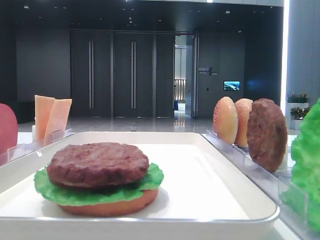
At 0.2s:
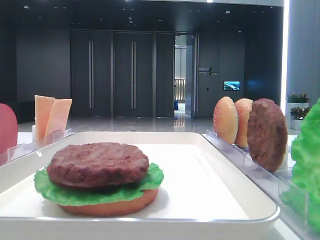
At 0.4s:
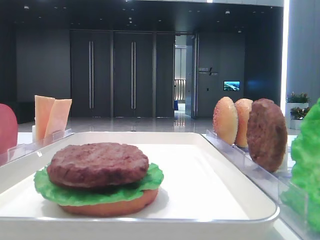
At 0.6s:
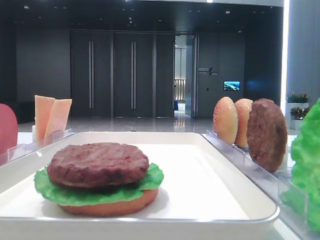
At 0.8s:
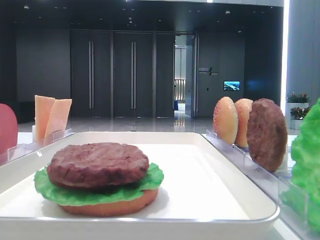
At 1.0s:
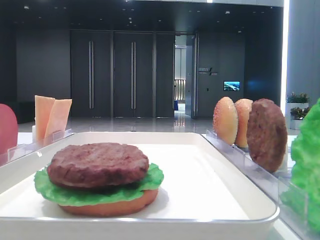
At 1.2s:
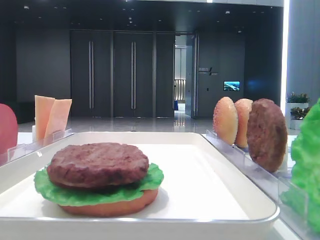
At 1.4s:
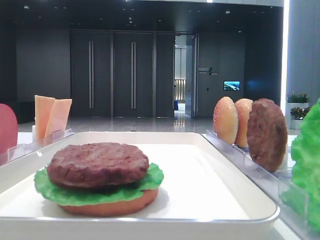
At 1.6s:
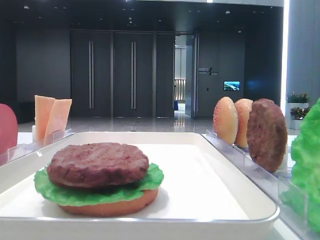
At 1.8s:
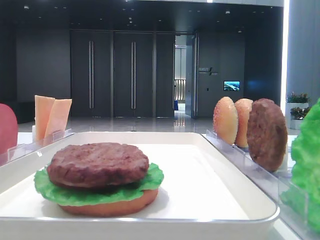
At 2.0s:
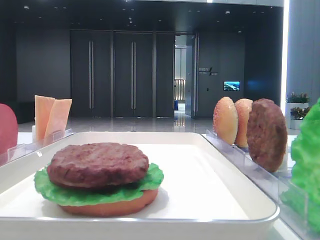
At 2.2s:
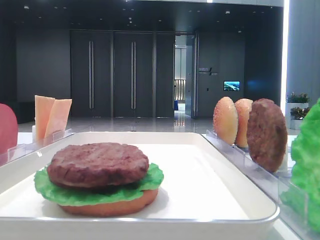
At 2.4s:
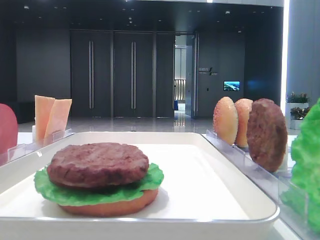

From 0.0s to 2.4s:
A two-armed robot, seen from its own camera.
From 1.2s to 2.4s: Neither gripper changes place.

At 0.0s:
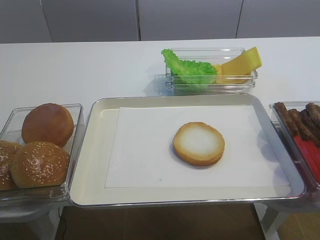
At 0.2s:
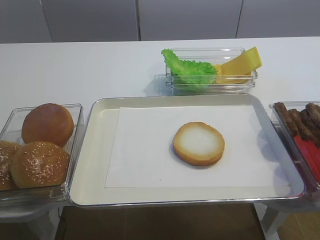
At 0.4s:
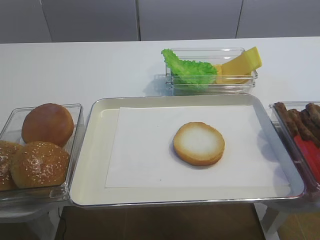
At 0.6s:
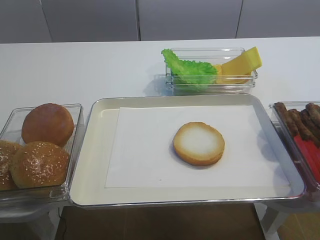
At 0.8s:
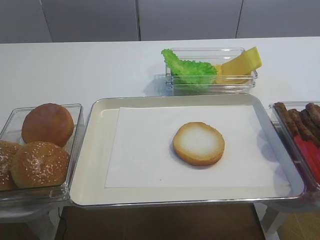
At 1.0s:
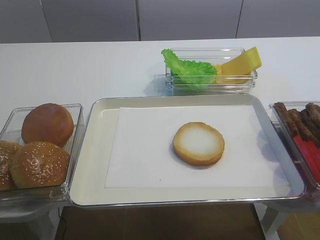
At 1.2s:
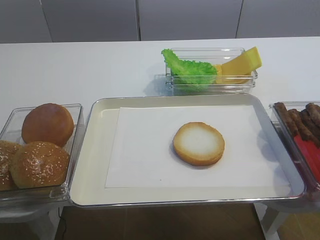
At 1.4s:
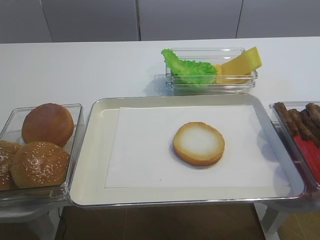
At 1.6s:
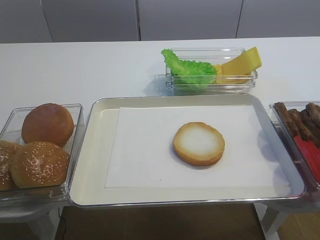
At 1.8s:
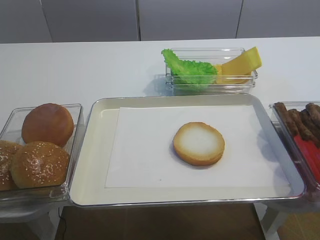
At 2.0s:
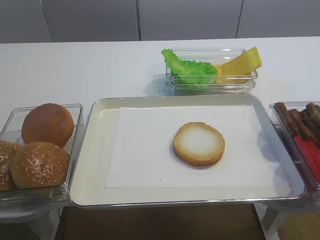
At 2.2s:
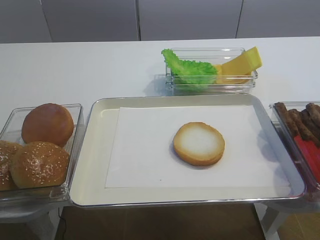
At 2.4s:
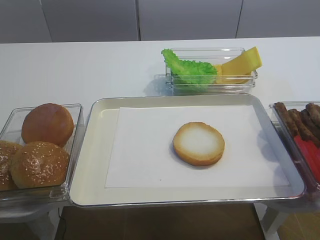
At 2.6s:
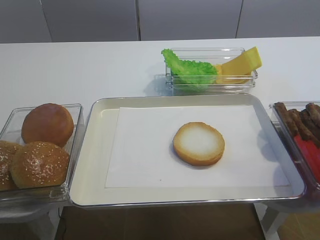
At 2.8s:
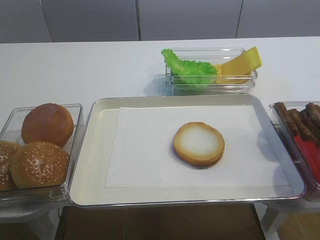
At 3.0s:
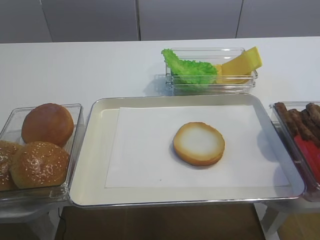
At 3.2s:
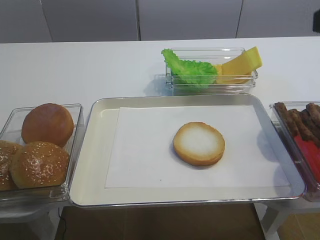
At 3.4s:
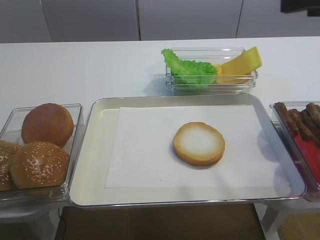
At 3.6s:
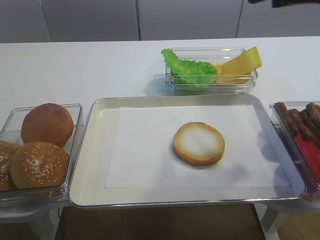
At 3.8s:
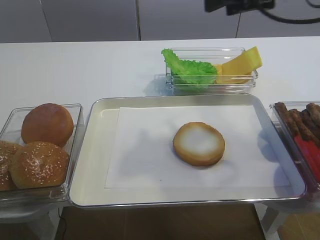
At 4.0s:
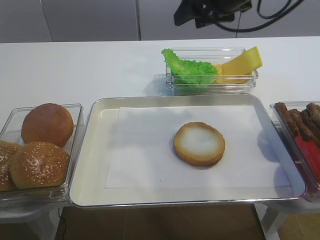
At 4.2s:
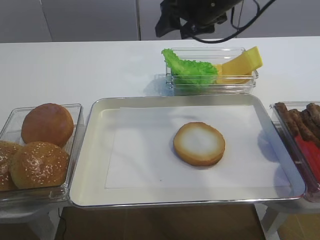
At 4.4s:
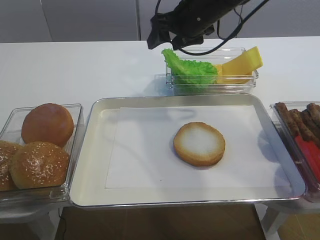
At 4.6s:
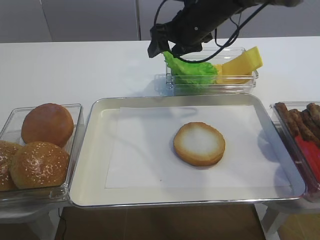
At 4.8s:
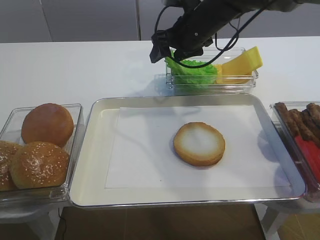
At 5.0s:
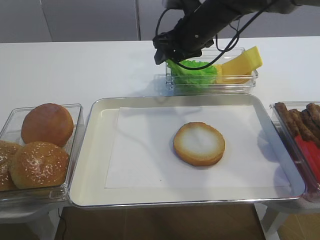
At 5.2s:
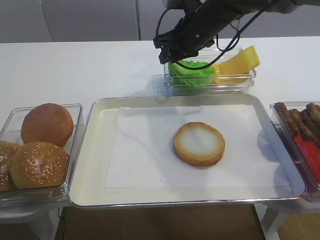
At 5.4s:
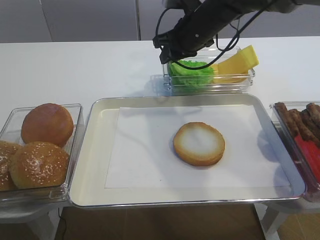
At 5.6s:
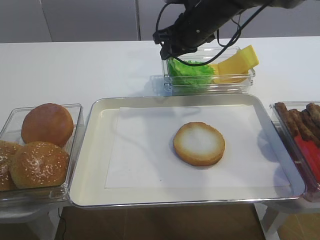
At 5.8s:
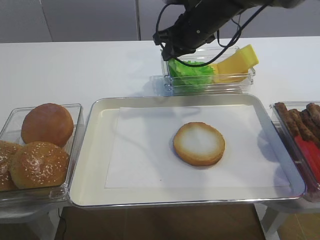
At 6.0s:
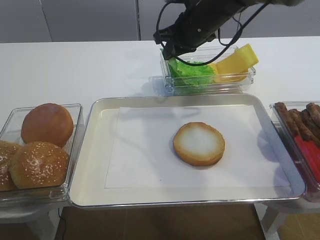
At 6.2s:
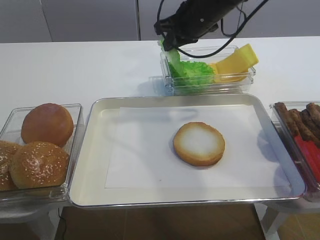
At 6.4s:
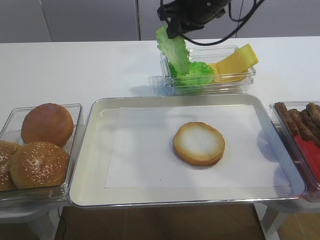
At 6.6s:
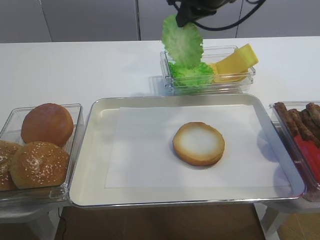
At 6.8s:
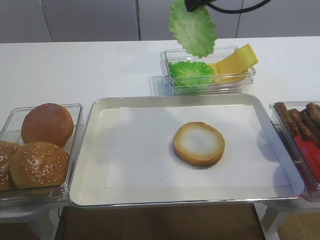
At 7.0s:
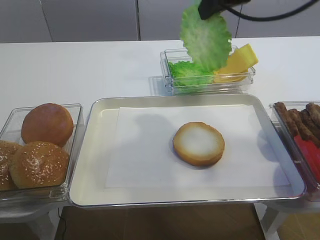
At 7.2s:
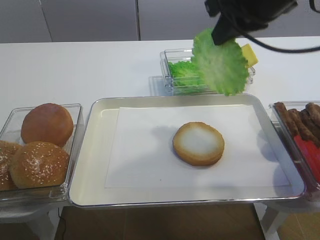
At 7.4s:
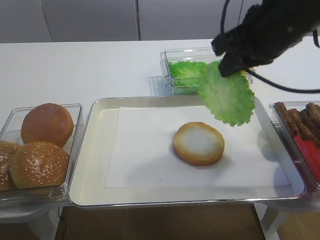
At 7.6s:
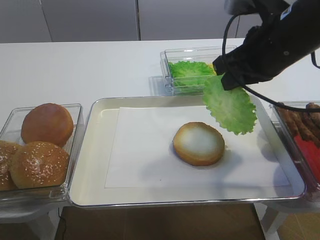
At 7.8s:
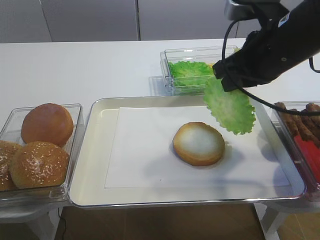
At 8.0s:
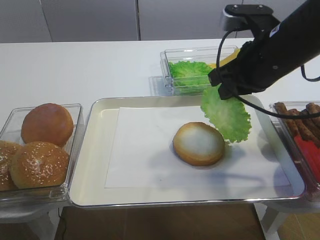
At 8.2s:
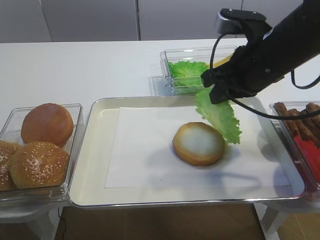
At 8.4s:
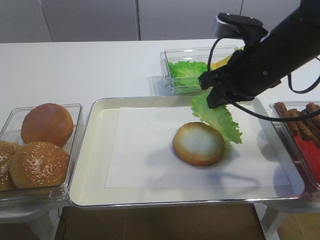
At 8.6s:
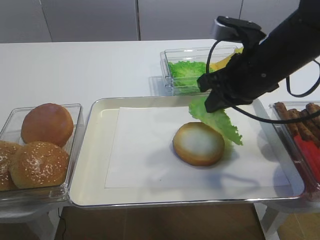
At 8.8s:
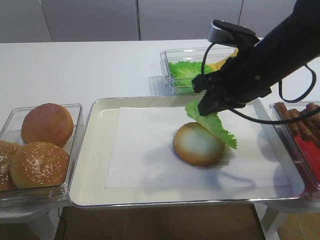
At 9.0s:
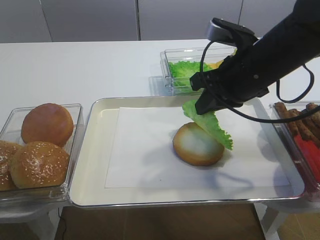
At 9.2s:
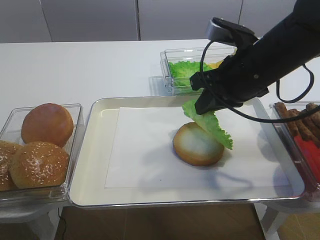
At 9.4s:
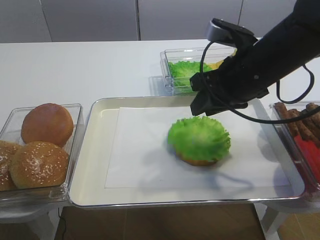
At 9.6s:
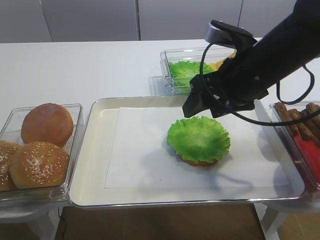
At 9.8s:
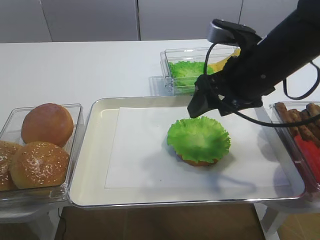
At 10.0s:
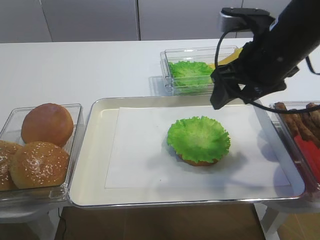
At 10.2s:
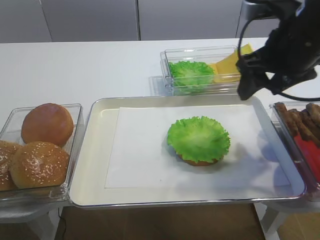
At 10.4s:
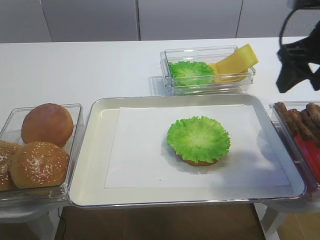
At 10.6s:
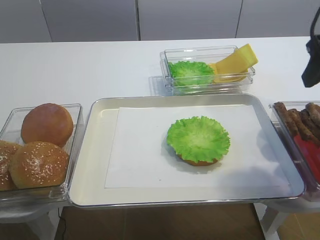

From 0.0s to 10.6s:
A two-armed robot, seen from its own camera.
Step, from 0.0s to 6.6s: Pick up the lettuce leaf with the right gripper.
Step, from 6.8s to 10.0s: Place the lettuce leaf on the bread slice with the right gripper.
From 3.0s to 4.6s: The right gripper goes approximately 35 cm forward and to the left.
From 4.6s to 6.0s: The right gripper closes up.
From 6.0s to 7.6s: The right gripper travels backward and to the right by approximately 20 cm.
From 7.6s to 9.0s: There are only small adjustments of the grippers.
From 9.0s to 10.6s: The right gripper heads to the right and upward, covering roughly 15 cm, and opens its fingers.

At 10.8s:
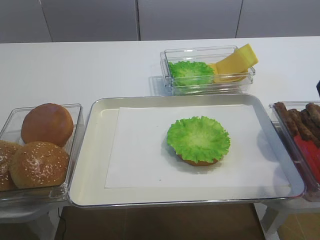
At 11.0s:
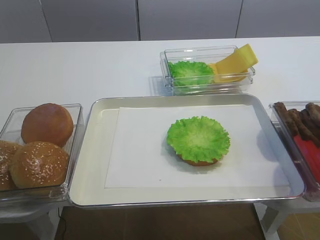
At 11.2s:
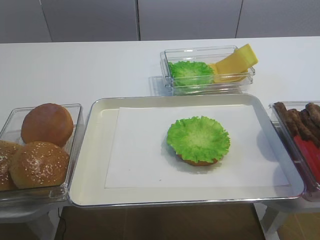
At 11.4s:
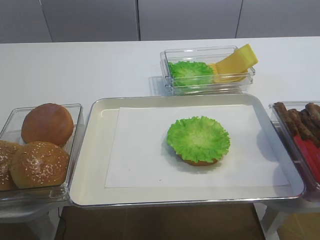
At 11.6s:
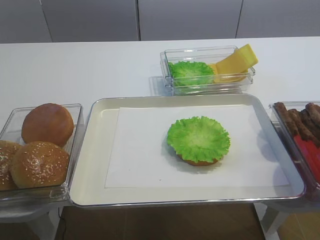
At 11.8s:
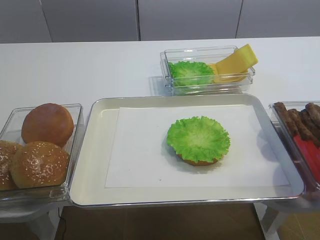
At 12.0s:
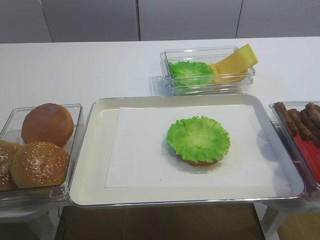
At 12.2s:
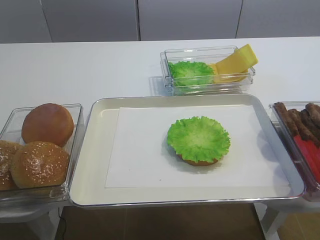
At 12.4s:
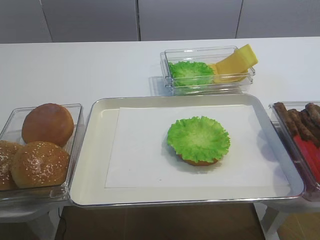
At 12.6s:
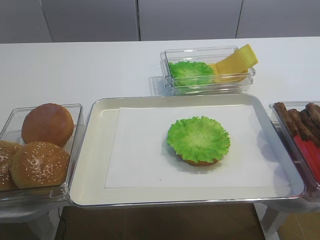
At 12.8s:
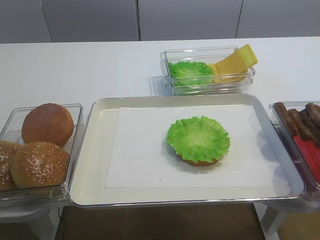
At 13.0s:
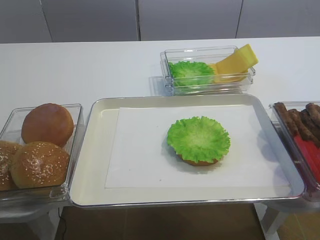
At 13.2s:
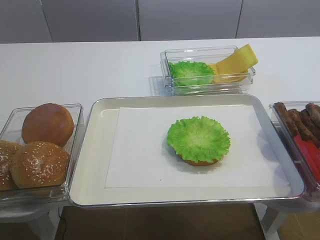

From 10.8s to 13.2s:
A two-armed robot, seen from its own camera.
From 10.8s to 12.0s: The right gripper moves backward, approximately 25 cm.

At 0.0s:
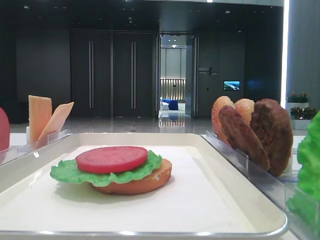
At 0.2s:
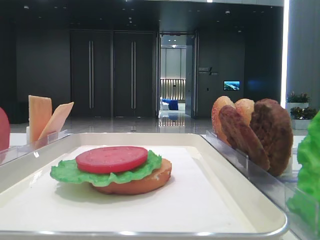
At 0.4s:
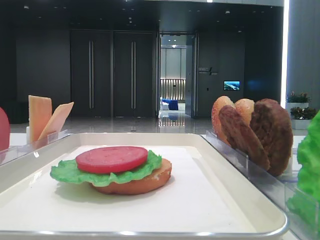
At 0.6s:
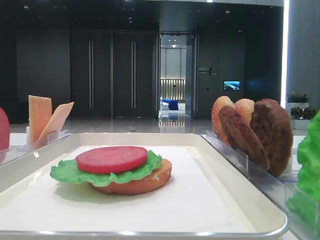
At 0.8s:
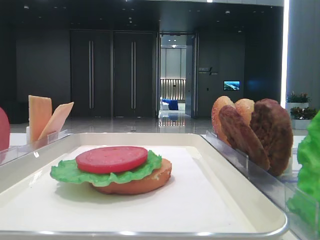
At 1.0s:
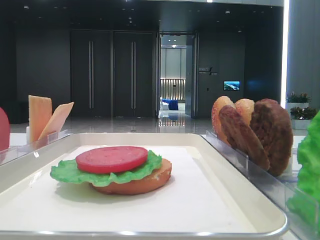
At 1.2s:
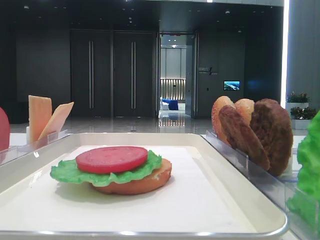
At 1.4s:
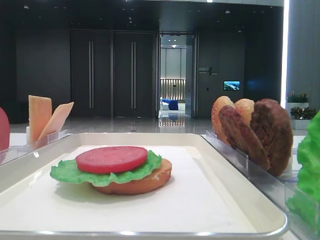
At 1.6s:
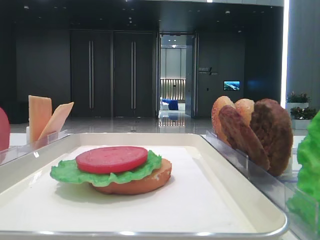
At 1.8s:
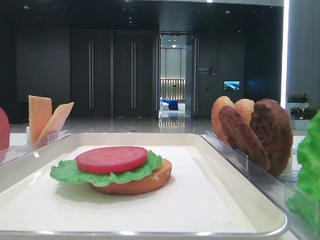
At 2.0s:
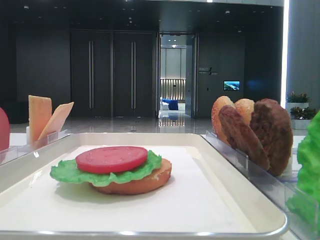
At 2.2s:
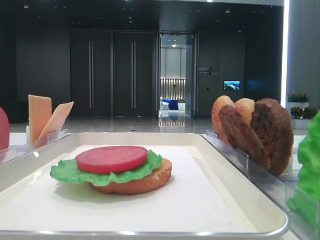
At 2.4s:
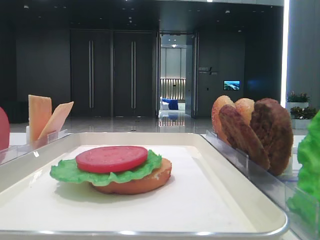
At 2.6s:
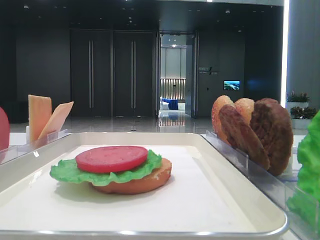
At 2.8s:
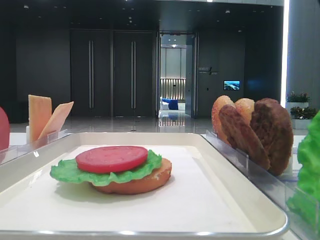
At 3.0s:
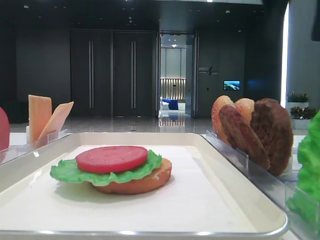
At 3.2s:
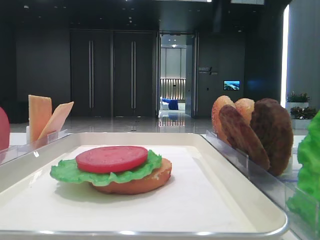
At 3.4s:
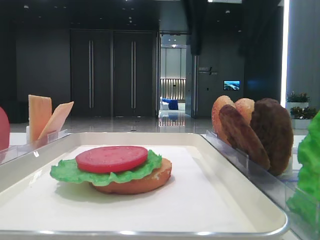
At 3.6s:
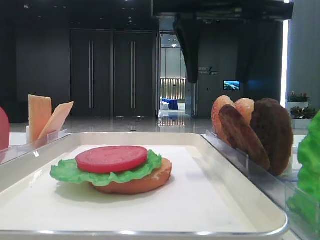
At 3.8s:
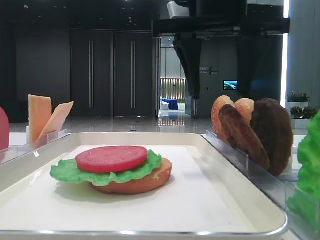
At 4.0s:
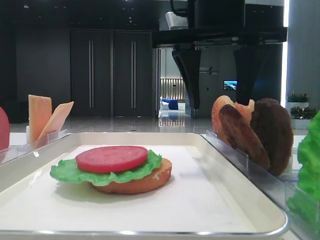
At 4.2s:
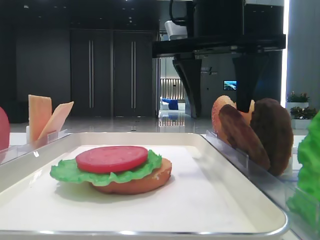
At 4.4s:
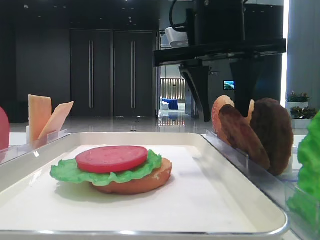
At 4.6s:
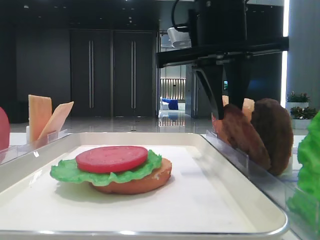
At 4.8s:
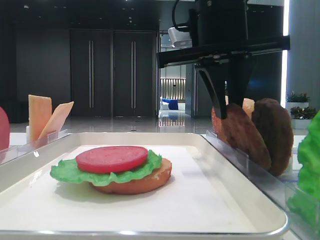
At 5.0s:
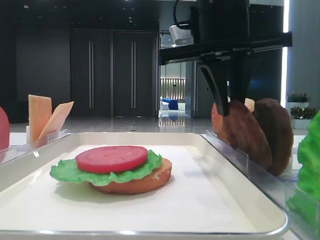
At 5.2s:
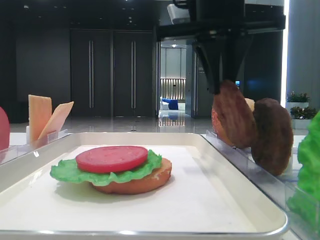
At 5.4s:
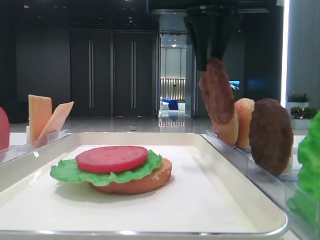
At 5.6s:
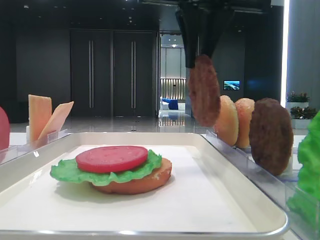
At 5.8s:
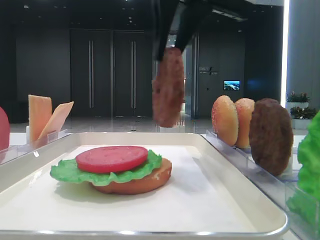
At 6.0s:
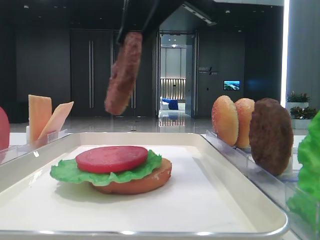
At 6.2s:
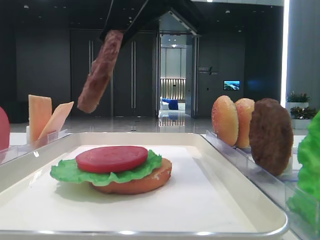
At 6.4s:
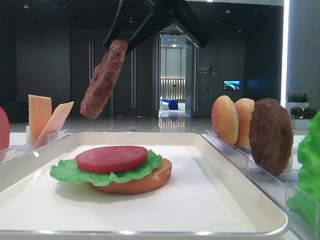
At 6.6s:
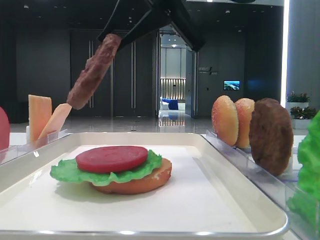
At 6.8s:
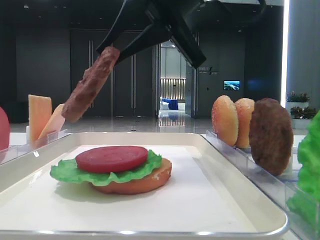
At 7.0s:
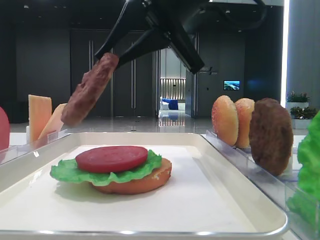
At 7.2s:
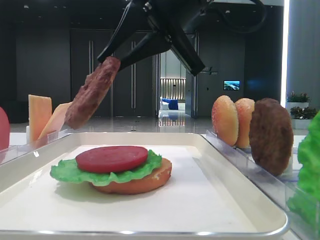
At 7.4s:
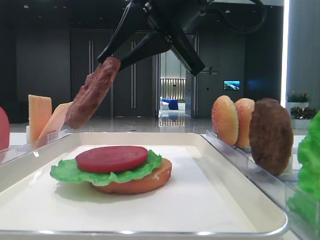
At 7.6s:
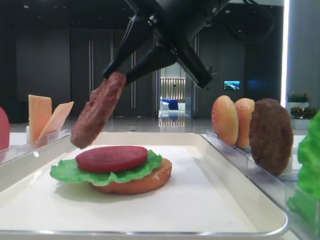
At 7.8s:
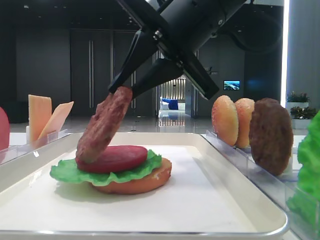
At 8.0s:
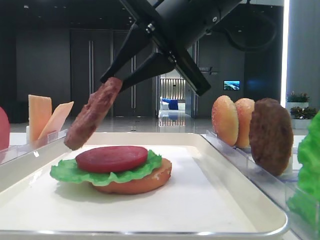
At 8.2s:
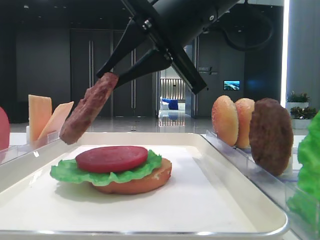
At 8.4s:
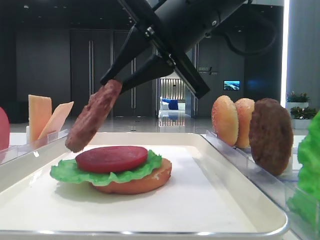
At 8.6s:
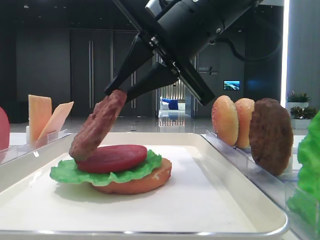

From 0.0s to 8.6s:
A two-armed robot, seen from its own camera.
Step, from 0.0s to 4.6s: Grab the patty with the right hand.
From 2.8s to 4.4s: The right gripper heads to the left and downward, covering approximately 20 cm.
From 4.4s to 5.8s: The right gripper shifts some 5 cm upward, and closes up.
From 7.2s to 8.6s: The grippers stay close to where they were, moving slightly.
